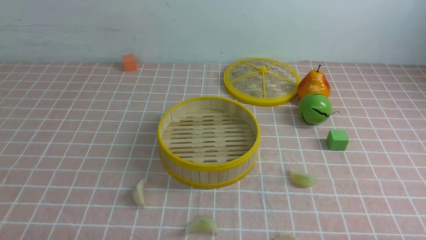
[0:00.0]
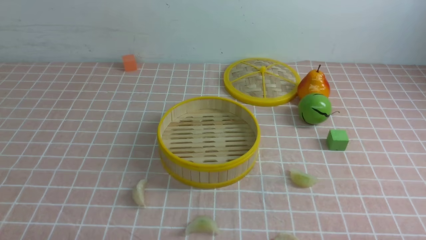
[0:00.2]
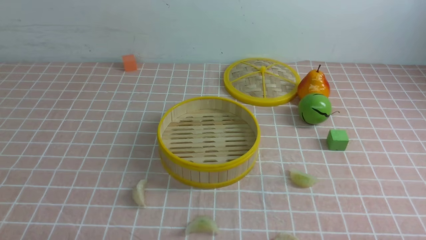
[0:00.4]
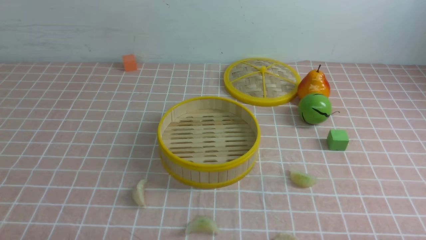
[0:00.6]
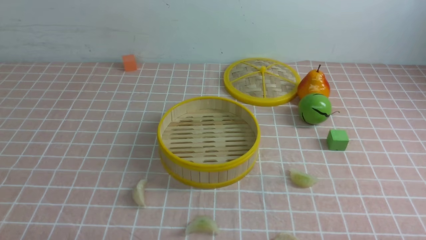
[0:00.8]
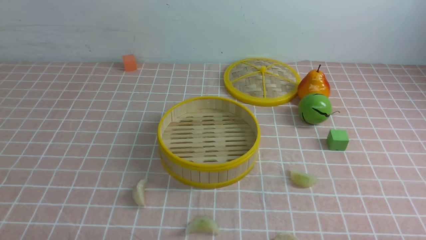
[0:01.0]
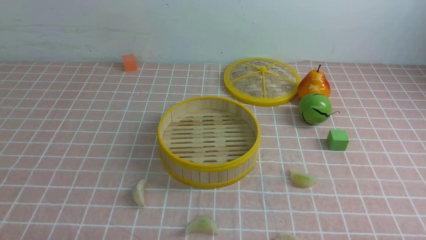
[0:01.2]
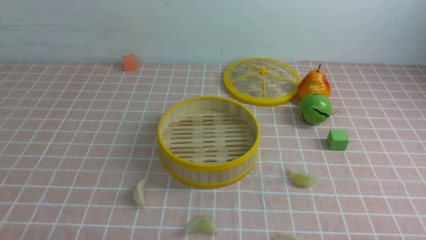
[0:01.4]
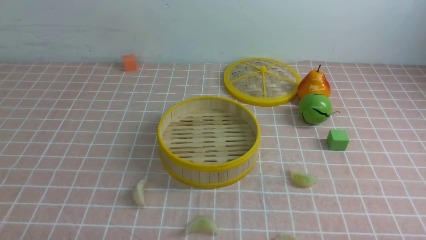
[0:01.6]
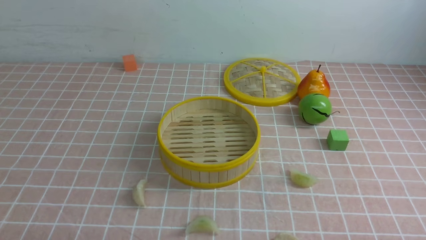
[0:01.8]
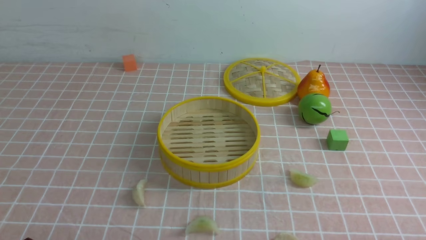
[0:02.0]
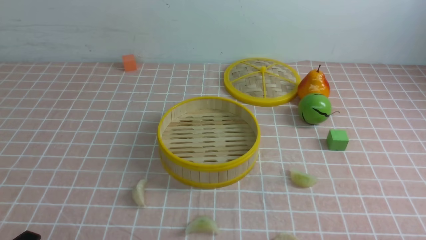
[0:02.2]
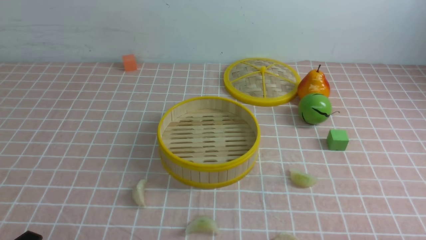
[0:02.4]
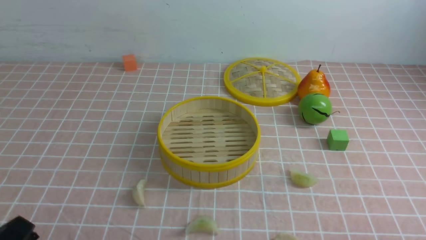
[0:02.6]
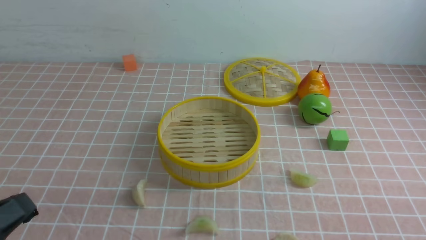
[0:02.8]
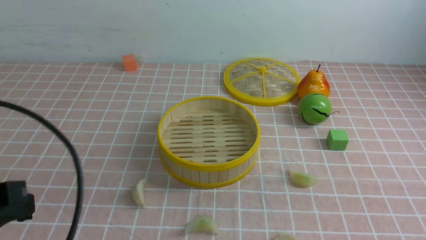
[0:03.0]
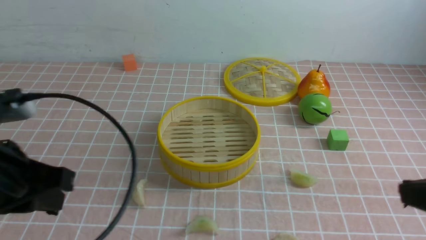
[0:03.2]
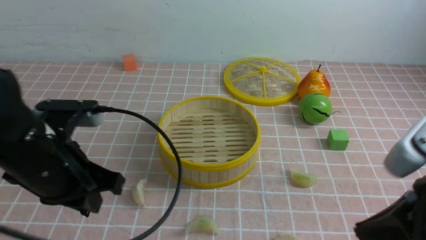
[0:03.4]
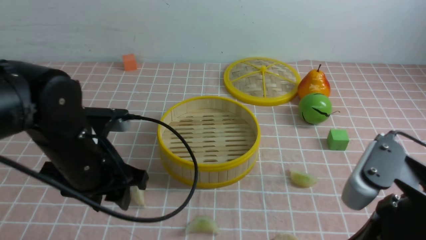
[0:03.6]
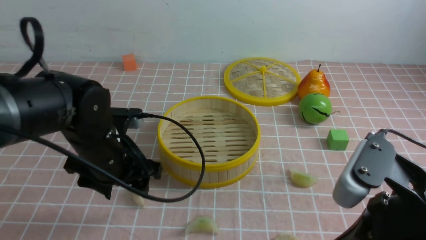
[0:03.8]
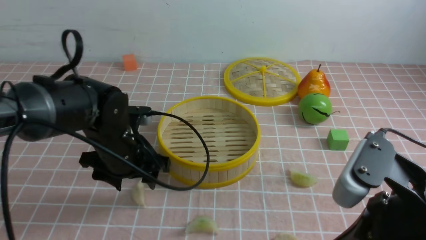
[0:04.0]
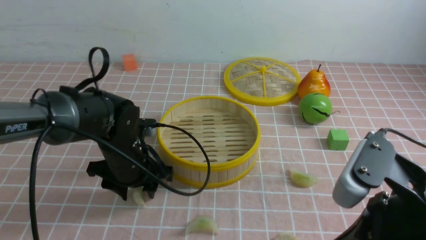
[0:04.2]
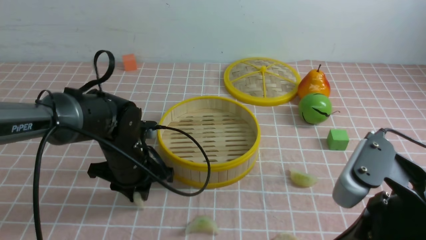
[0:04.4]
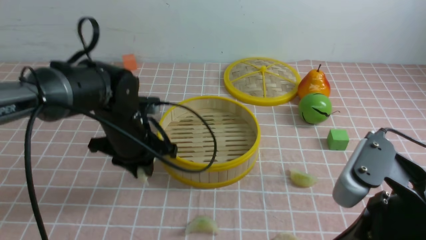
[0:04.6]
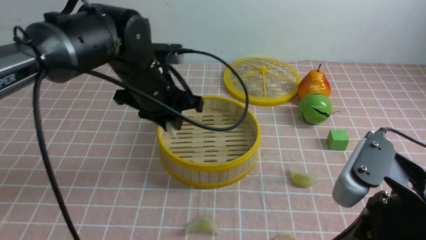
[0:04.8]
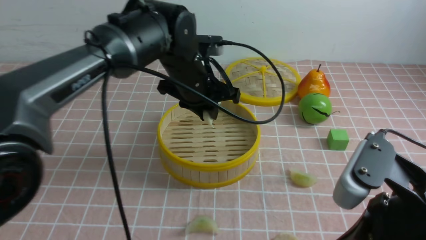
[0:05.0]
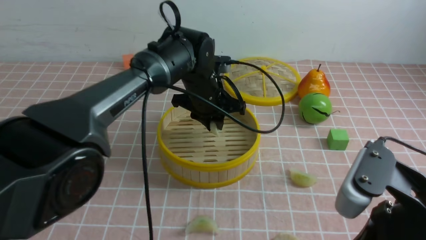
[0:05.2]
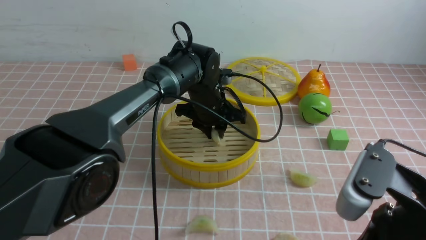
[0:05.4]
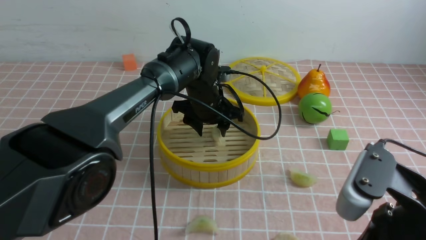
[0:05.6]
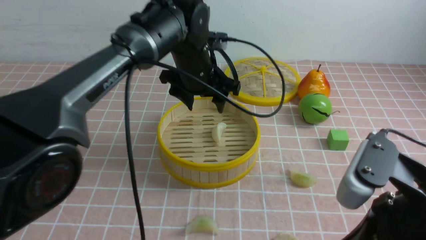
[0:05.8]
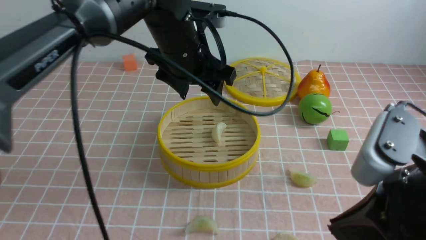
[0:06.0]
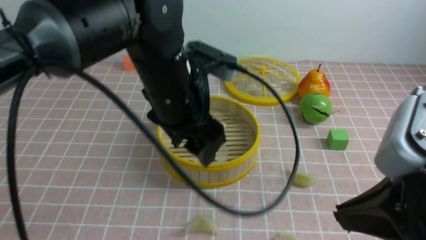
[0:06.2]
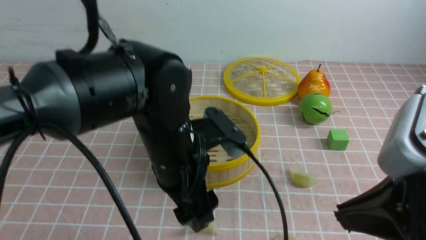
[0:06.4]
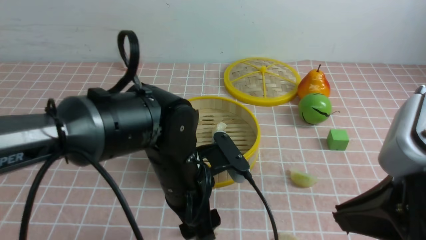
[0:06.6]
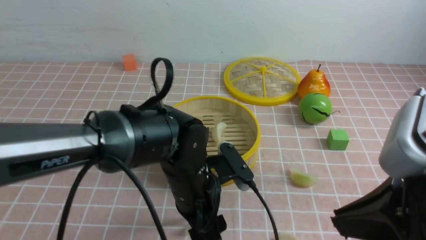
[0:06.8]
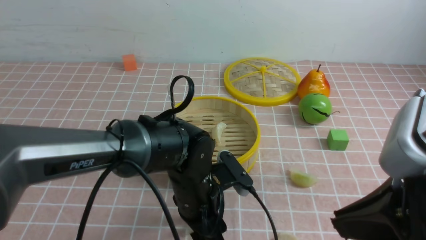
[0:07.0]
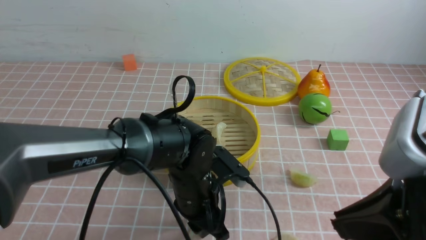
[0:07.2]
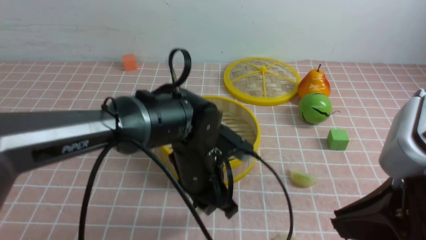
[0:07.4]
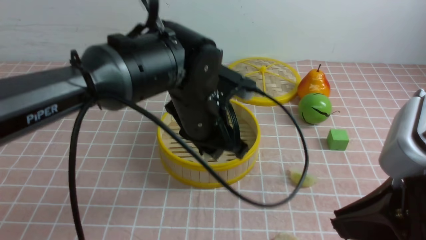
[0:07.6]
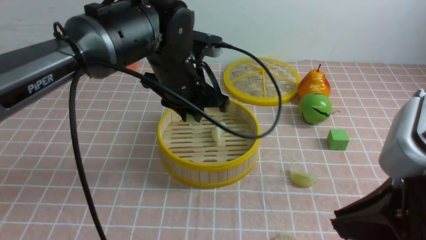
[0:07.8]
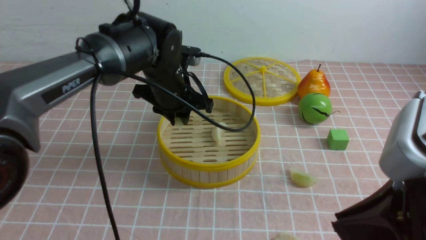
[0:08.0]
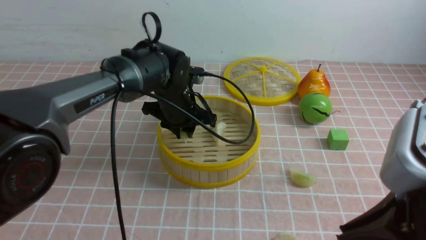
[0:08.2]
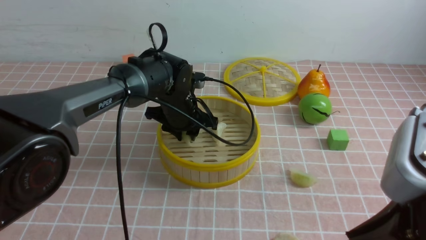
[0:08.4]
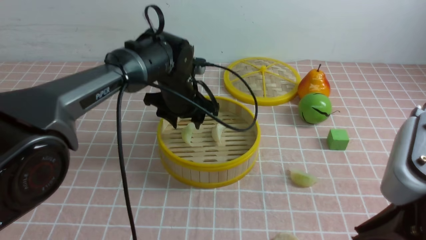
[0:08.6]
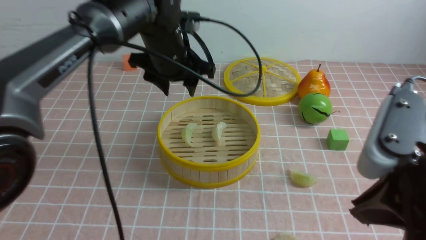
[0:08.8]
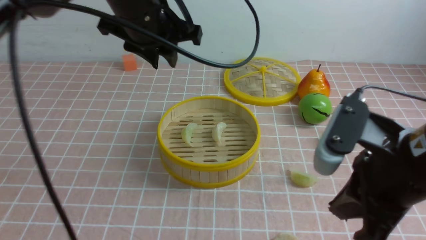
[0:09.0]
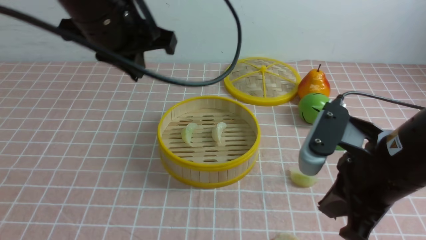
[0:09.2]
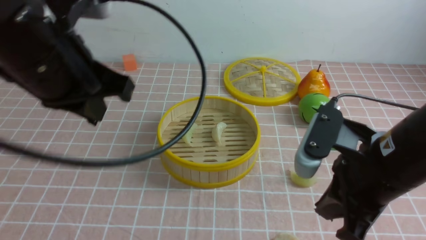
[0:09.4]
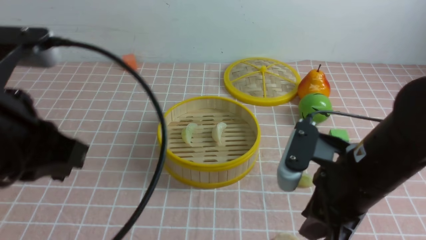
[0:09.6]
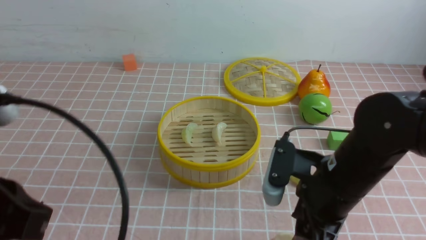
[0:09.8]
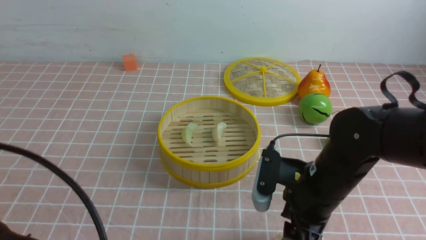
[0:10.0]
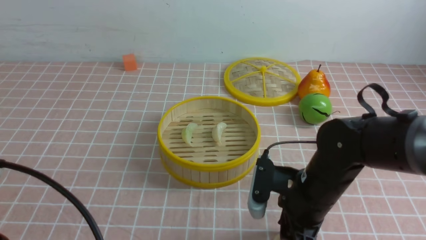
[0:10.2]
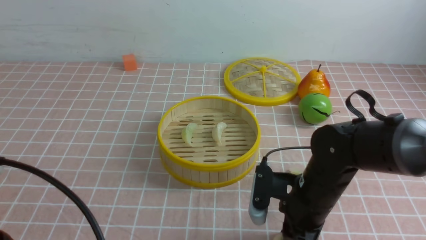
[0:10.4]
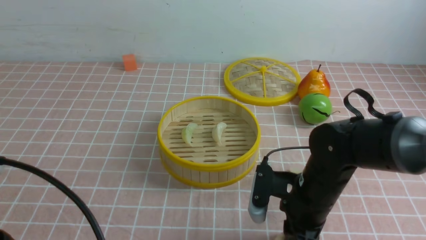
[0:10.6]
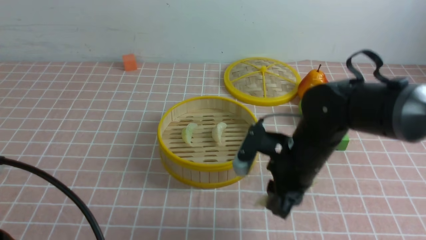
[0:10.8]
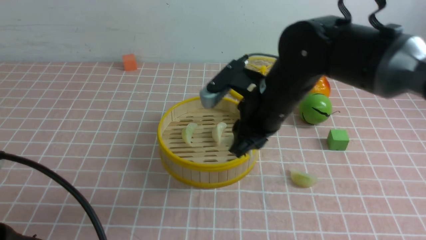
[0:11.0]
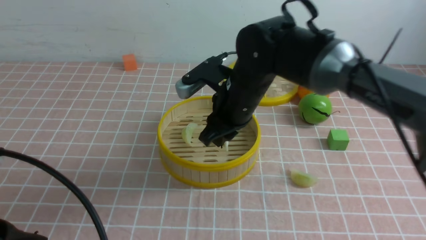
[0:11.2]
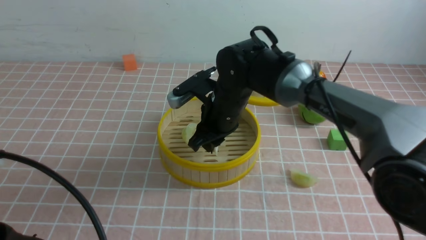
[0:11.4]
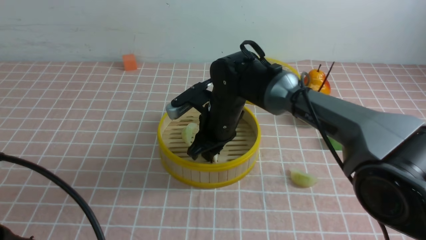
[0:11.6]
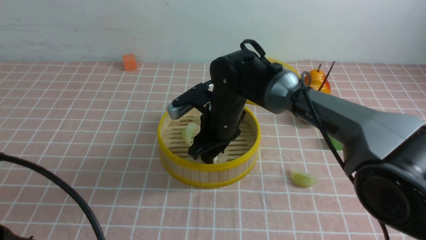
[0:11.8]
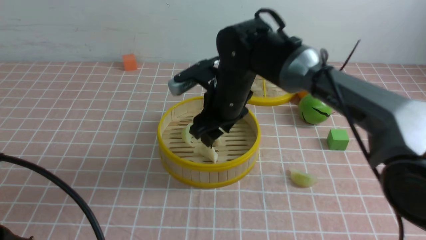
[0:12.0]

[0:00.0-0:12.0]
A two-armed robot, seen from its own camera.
Task of the whole recording: put the dumplings into the steamer on the table with the pink tablecloth.
Step, 0.0 to 4.4 s: use the left arm to grab a dumpling.
Step, 4.6 to 5.4 s: use the left arm to put the dumpling into the steamer.
Step, 5.8 to 7.0 s: use the left arm to grab a dumpling.
Step, 7.2 to 8.8 s: use the left arm to put the dumpling into the steamer.
Step, 9.0 to 10.4 s: use the right arm to grab a dumpling.
Step, 10.6 to 11.8 s: use the right arm to put the dumpling into the steamer.
1.6 to 3.0 s: The left gripper travels upward by some 15 cm, and closes up.
3.0 to 4.4 s: The left gripper is displaced forward, downward and to the right by about 30 cm, and opens. Meanwhile the right gripper goes about 10 cm to the left and forward.
4.4 to 6.0 s: The left gripper swings up and down, about 15 cm each way, with 2 reversals, and opens up.
6.0 to 7.6 s: The left gripper shifts some 10 cm backward and downward, and closes its fingers.
7.6 to 9.0 s: The right gripper ends up about 5 cm from where it was. Meanwhile the left gripper heads upward, forward and to the left, covering approximately 15 cm.
9.0 to 10.4 s: The left gripper goes some 30 cm backward and to the left, and closes up, while the right gripper shifts some 20 cm downward and forward, and opens.
10.4 to 12.0 s: The right gripper goes approximately 20 cm forward, to the left and upward.

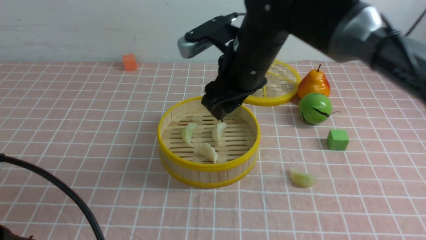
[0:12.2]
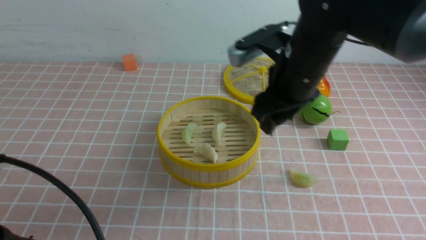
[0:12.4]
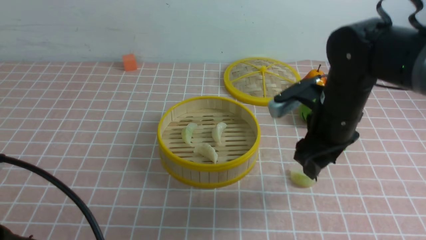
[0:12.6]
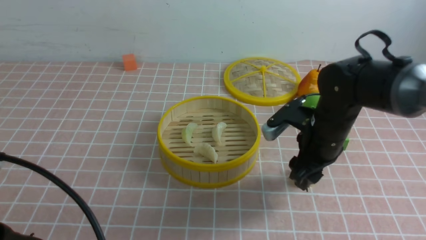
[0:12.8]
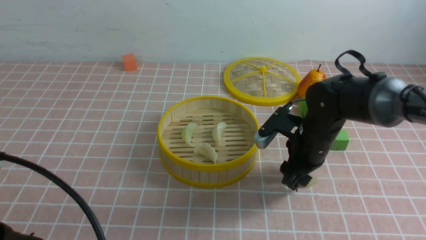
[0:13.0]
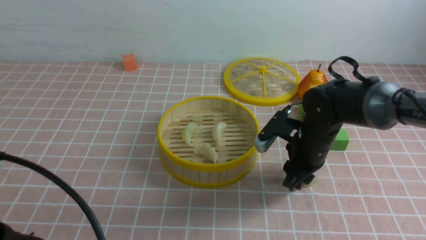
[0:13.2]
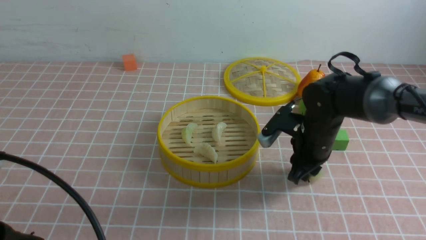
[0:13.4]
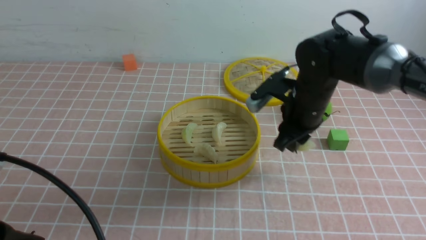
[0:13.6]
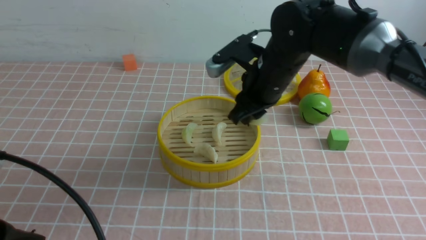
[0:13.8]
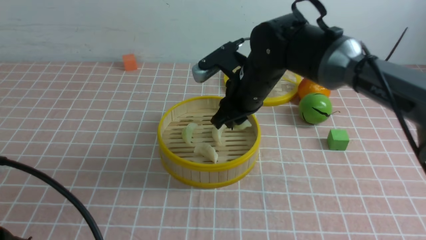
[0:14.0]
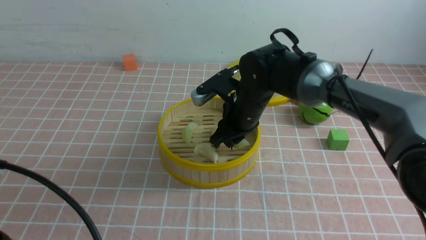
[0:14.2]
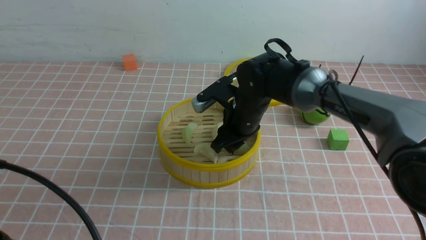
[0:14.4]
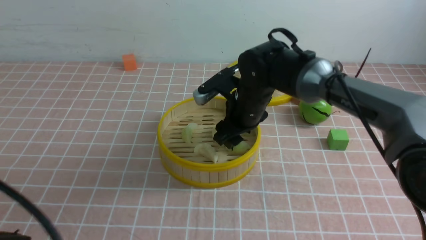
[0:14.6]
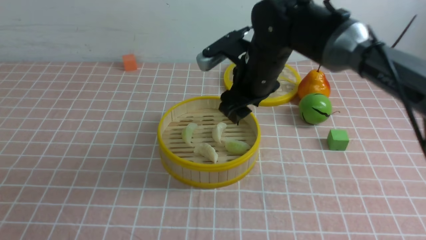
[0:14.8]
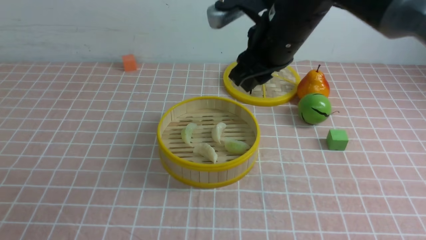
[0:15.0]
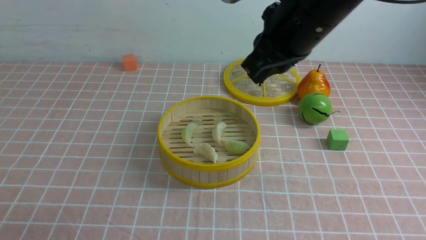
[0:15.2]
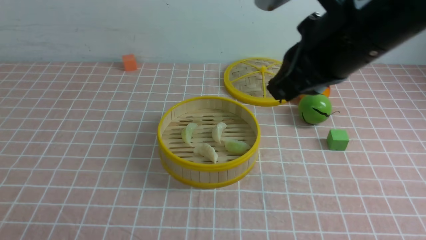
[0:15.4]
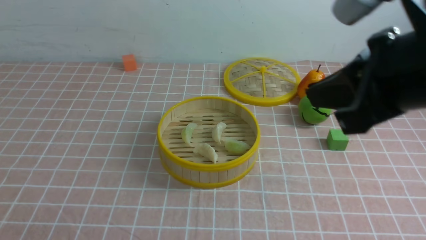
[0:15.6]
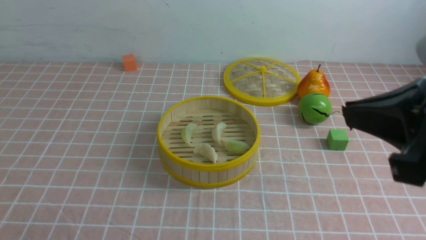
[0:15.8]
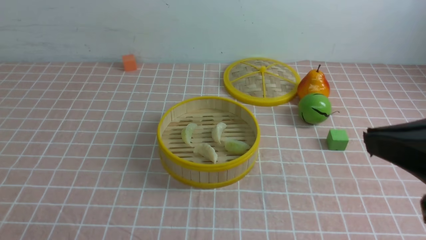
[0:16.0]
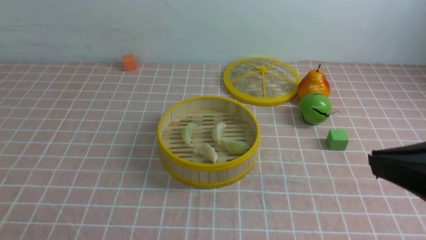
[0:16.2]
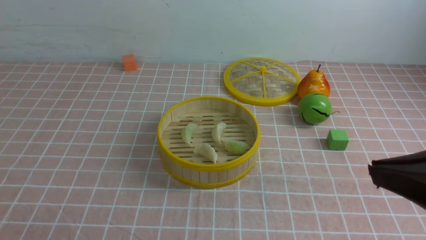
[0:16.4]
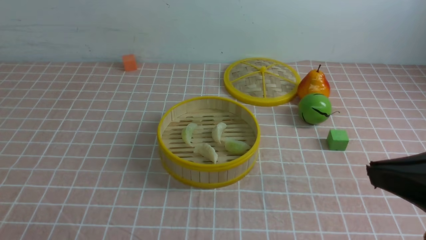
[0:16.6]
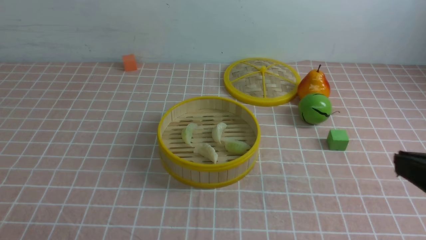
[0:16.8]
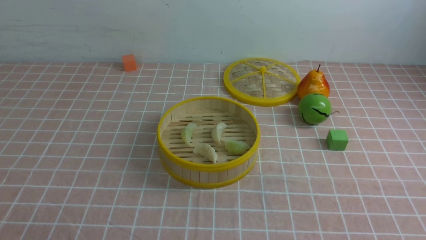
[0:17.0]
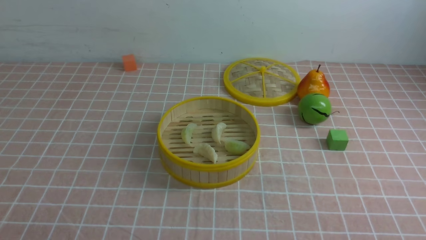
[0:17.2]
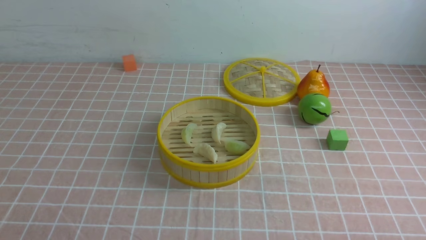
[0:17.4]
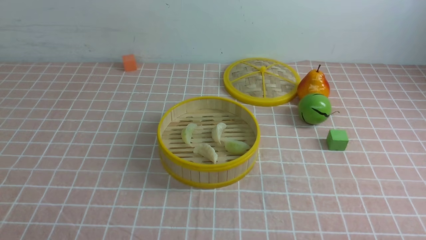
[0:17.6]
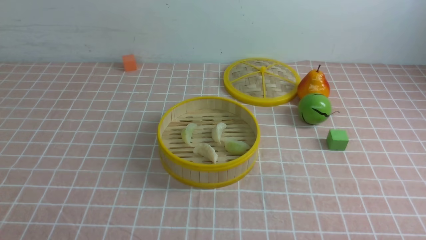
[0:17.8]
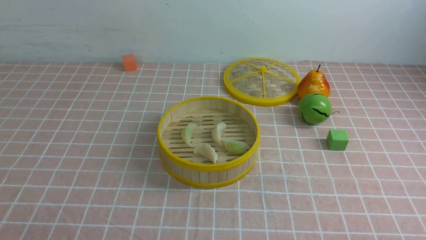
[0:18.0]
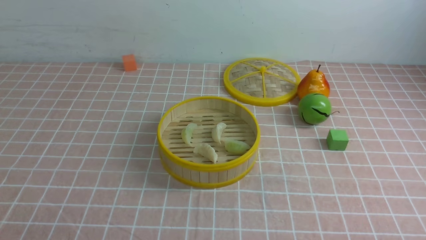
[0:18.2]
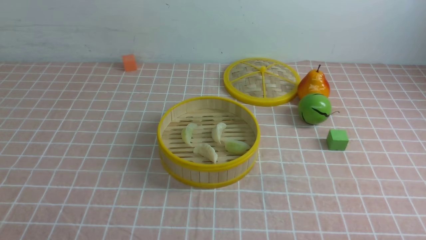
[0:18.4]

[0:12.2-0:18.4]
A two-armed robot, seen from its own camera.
Task of the whole recording: put the dumplings into the steamer on the table with the pink tablecloth.
Step, 12.2 to 12.8 s: use the right arm to grab a dumpling.
Step, 13.0 to 14.6 s: use the right arm to put the dumpling into the steamer.
12.2 to 13.8 s: The right gripper is displaced to the right by roughly 5 cm, moves about 15 cm downward and comes back, and closes its fingers.
13.8 to 15.4 s: The right gripper travels upward and backward by about 20 cm, and closes up; the left gripper heads backward, covering approximately 10 cm.
15.4 to 16.8 s: The right gripper moves backward, to the right and downward, about 20 cm.
16.8 to 18.4 s: The right gripper shifts about 15 cm downward.
